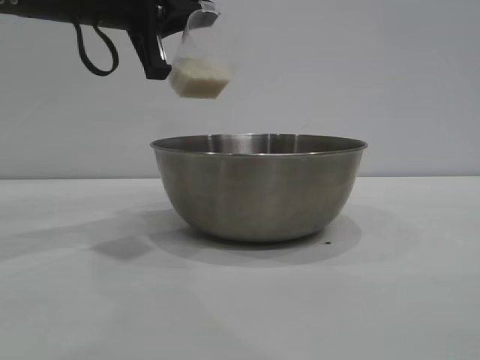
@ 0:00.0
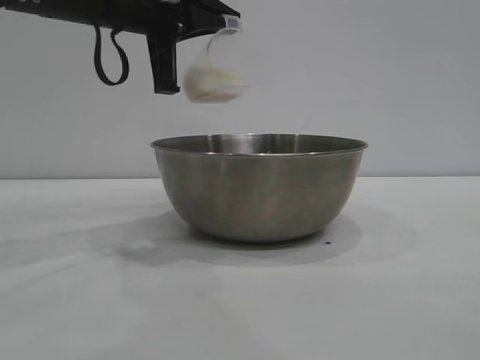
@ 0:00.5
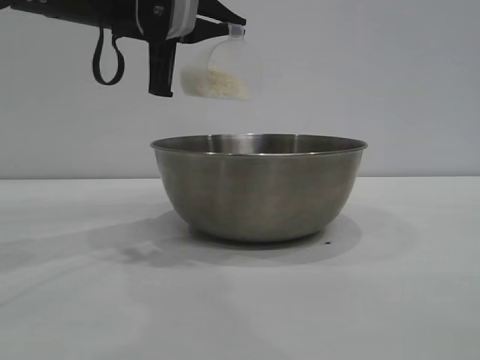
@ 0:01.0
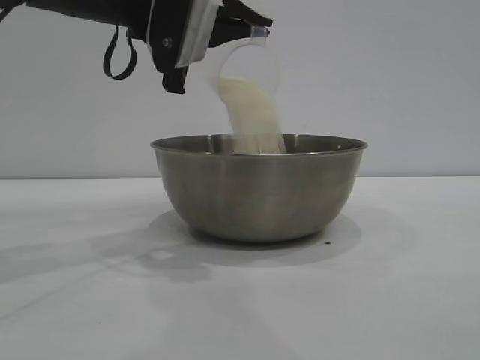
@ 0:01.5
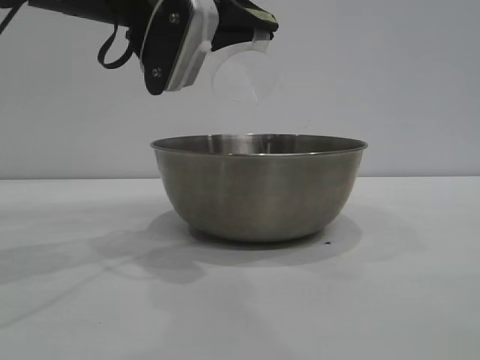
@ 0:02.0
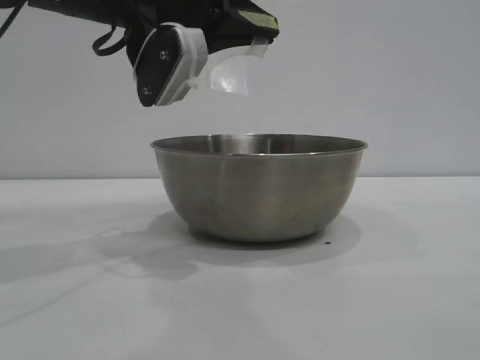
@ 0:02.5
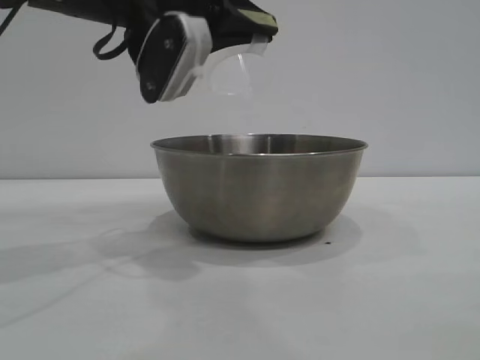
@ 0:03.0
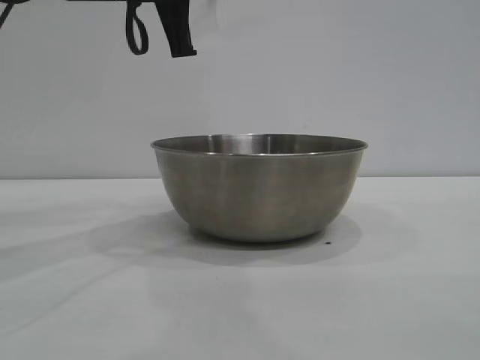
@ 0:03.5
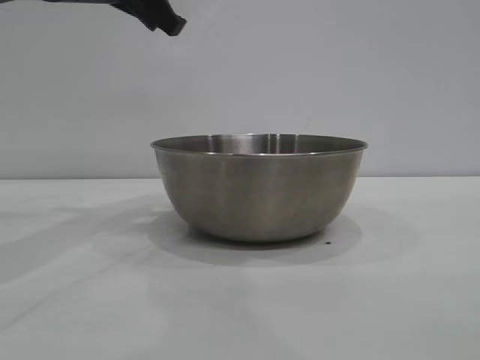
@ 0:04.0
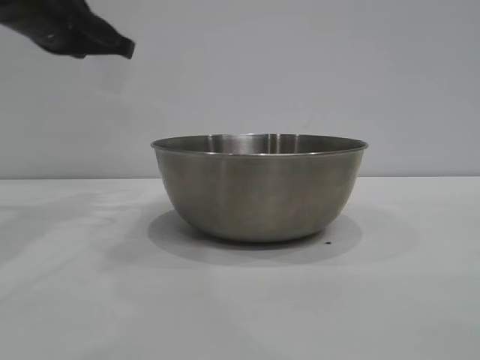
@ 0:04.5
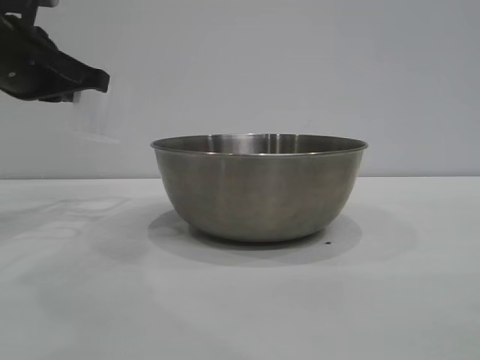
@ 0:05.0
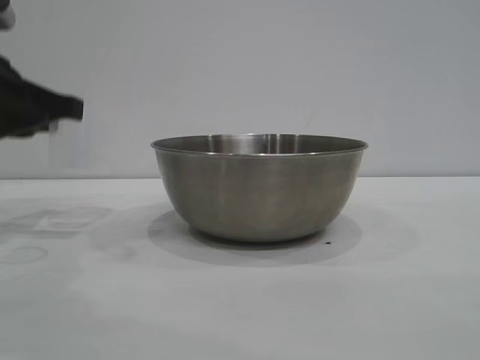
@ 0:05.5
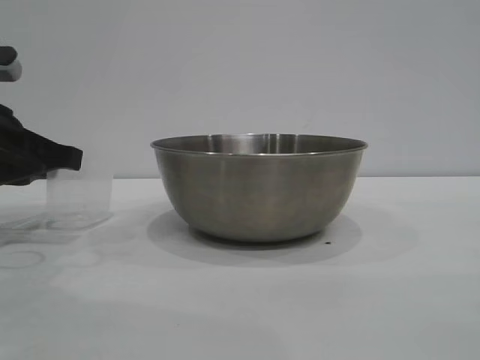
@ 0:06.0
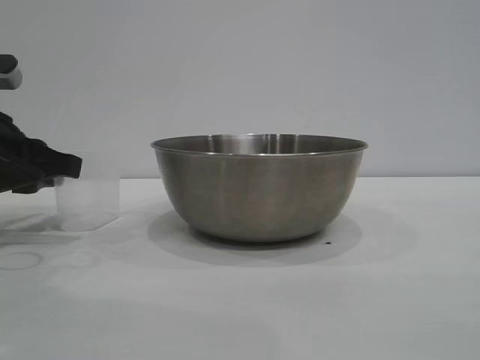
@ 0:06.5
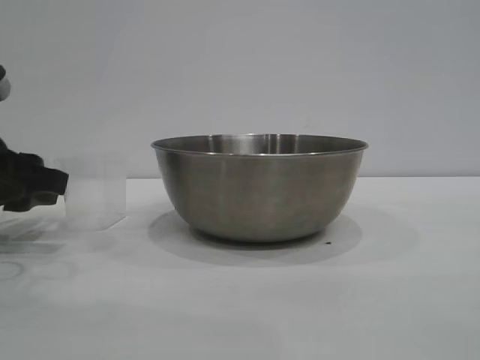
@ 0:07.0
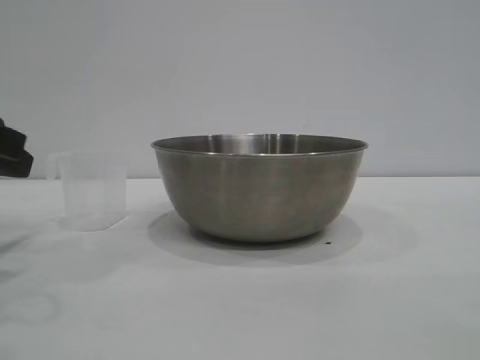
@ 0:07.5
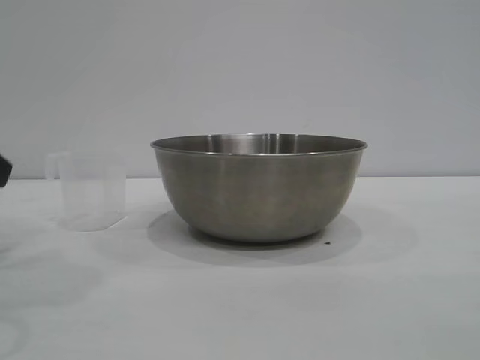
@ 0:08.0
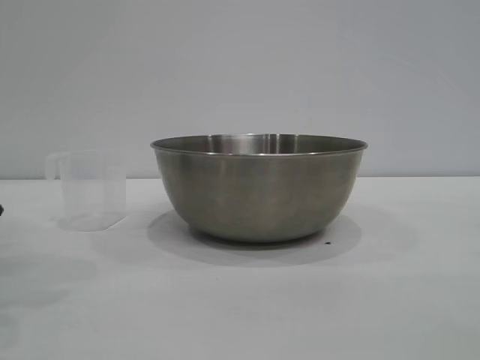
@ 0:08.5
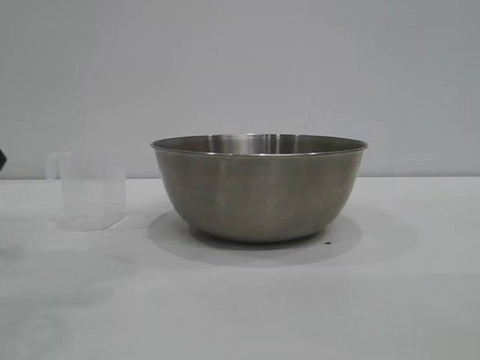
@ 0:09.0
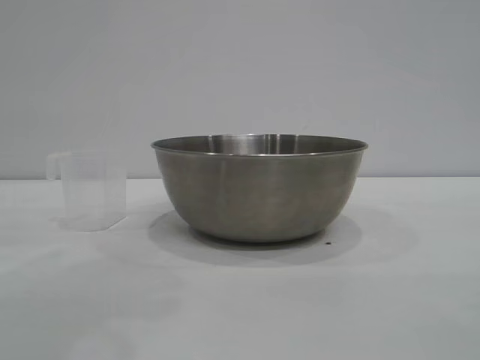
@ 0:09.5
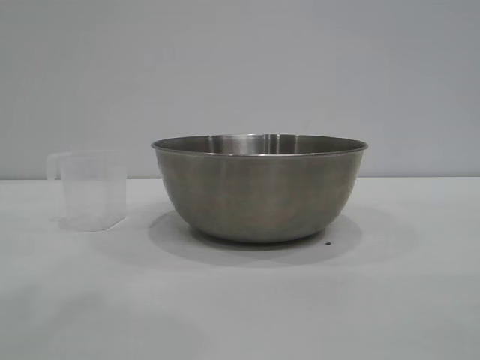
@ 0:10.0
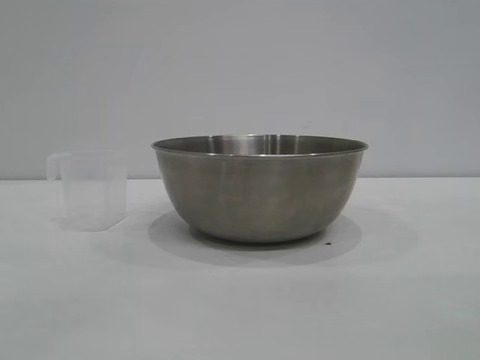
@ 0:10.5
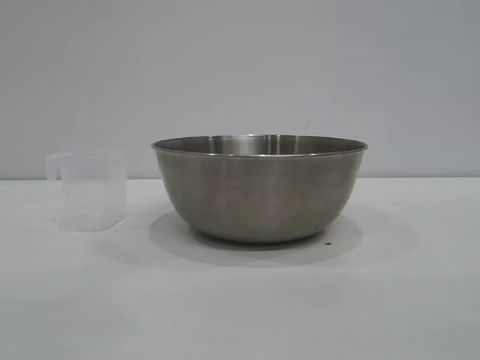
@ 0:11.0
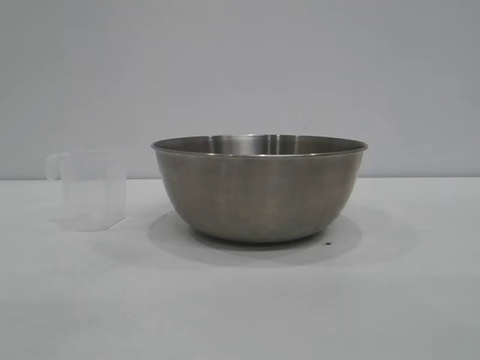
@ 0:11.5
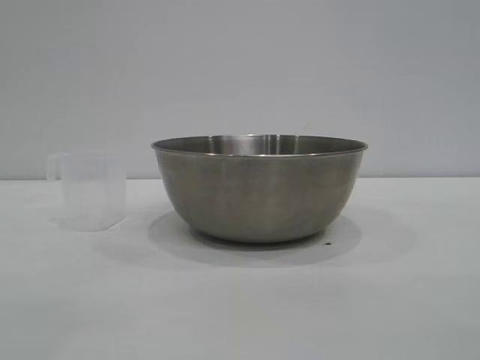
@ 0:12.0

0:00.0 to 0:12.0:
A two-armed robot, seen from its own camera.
Task of the whole recording: the right gripper grasp the rice container and place it in the center of the table, the left gripper grasp the rice scoop and pour the rice into the rice container.
Step, 0:00.0 to 0:03.0: Pour the rice from the cup into the bowl with the left gripper.
Step, 0:03.5 to 0:07.0: Place the cup on the table with the left gripper.
